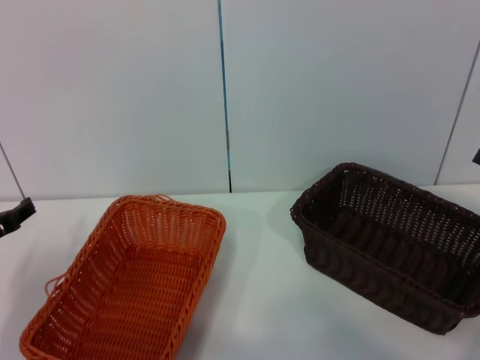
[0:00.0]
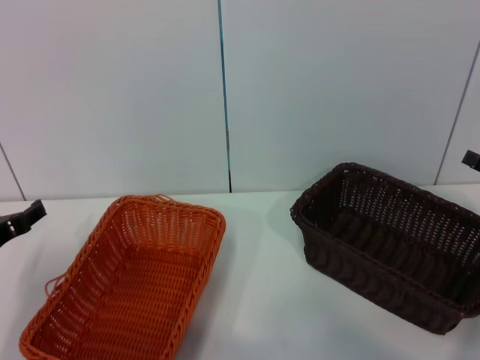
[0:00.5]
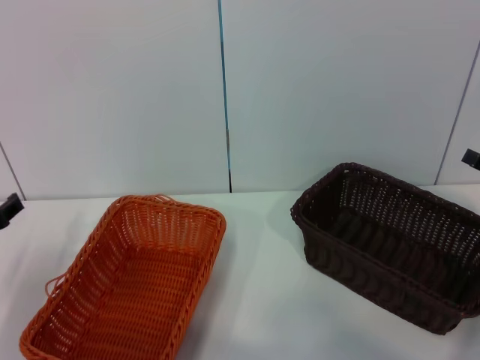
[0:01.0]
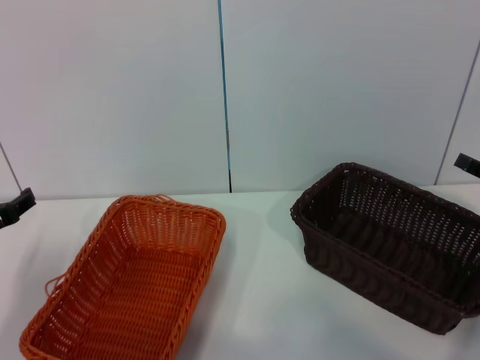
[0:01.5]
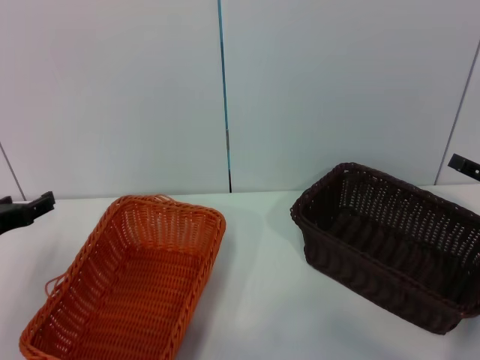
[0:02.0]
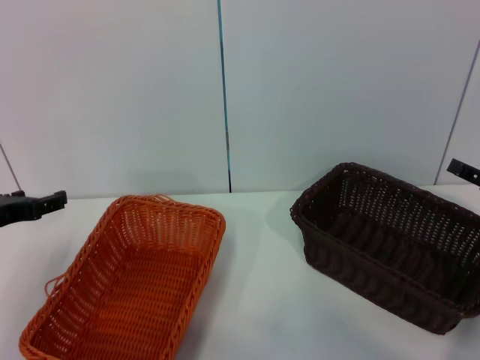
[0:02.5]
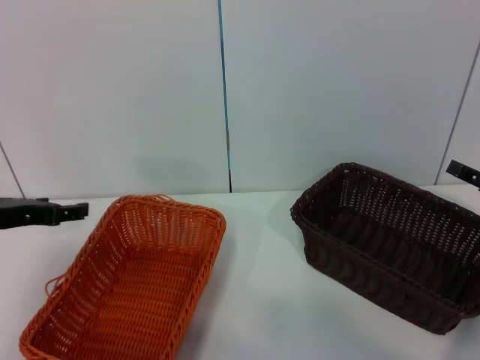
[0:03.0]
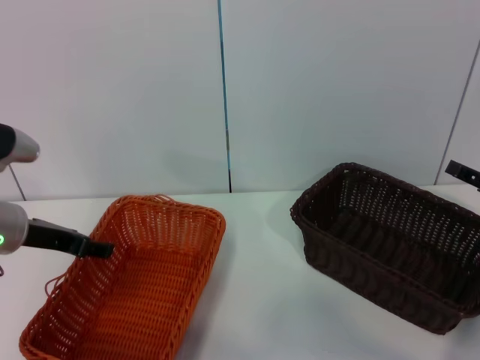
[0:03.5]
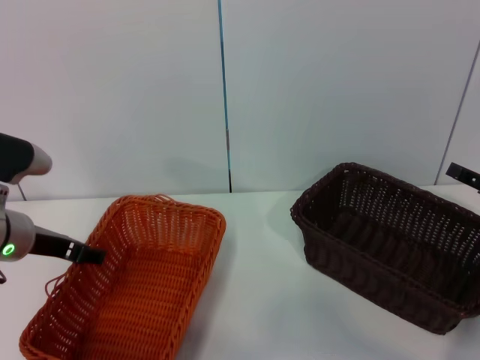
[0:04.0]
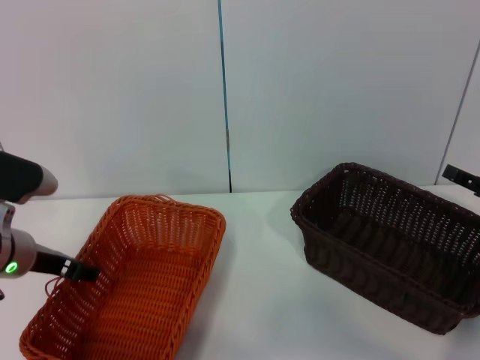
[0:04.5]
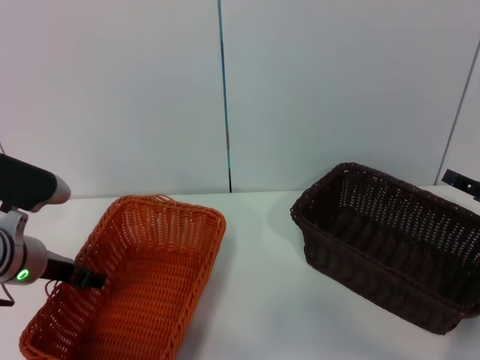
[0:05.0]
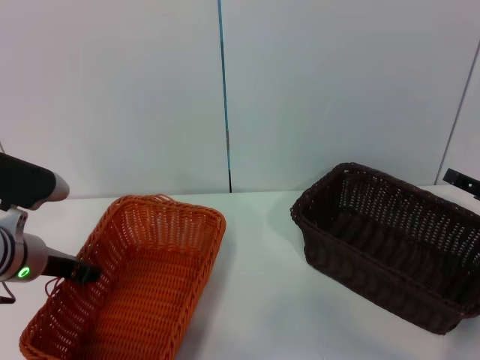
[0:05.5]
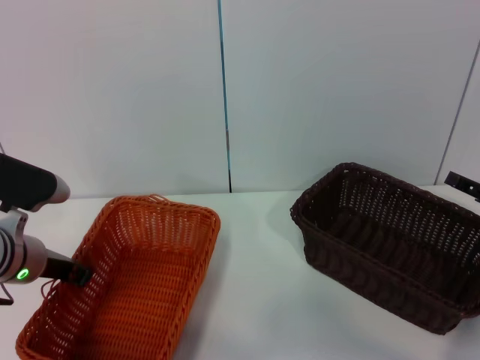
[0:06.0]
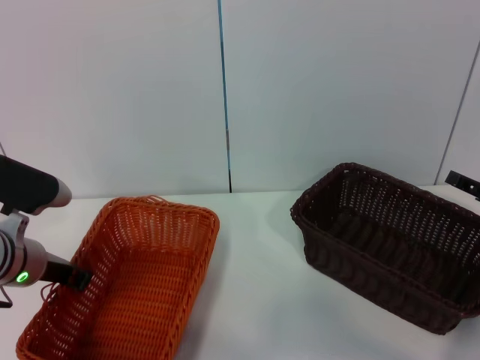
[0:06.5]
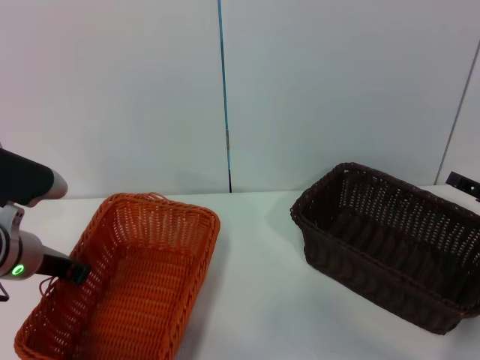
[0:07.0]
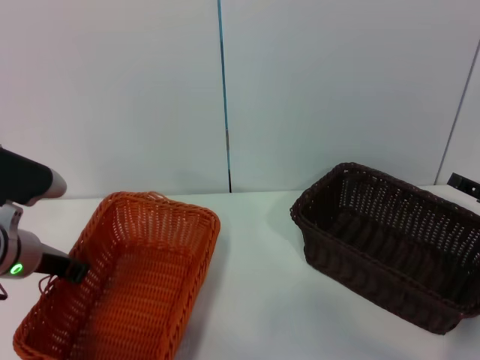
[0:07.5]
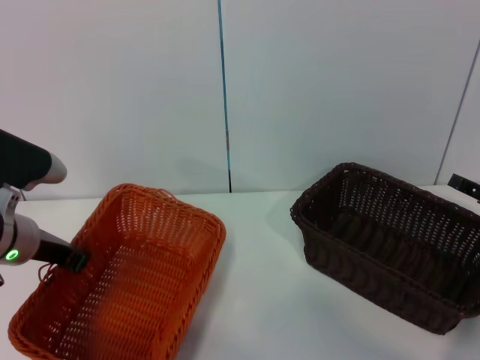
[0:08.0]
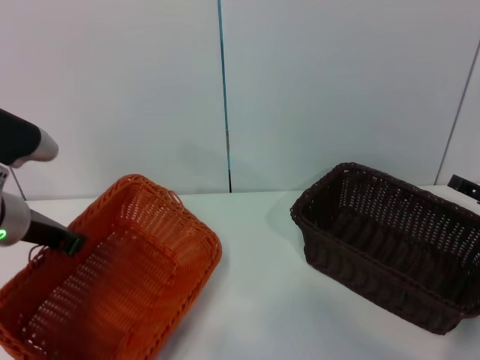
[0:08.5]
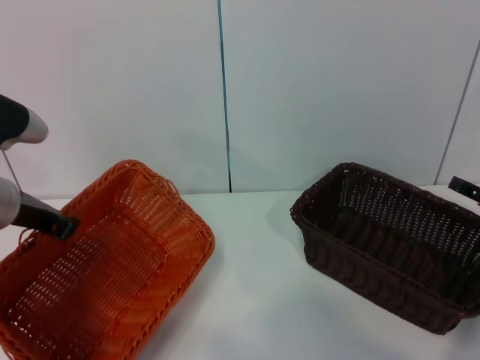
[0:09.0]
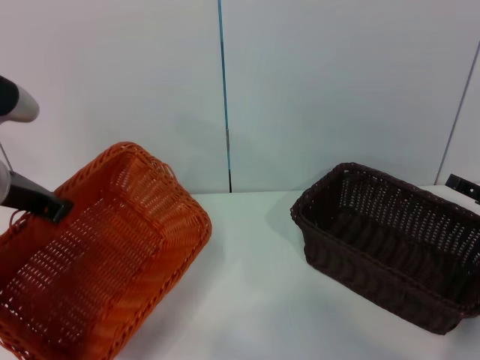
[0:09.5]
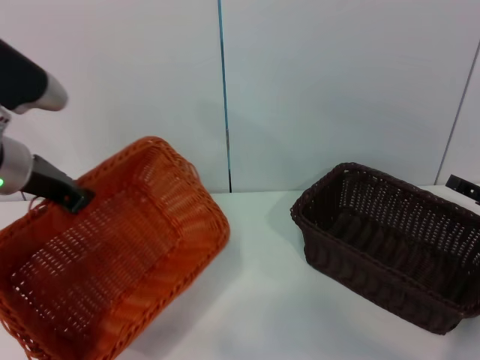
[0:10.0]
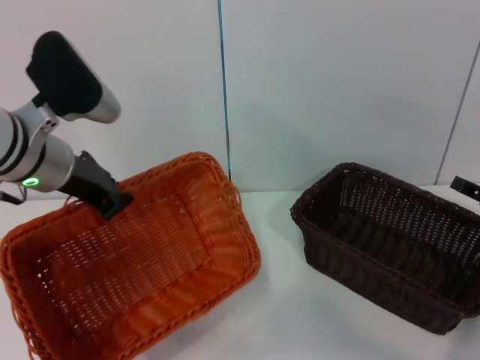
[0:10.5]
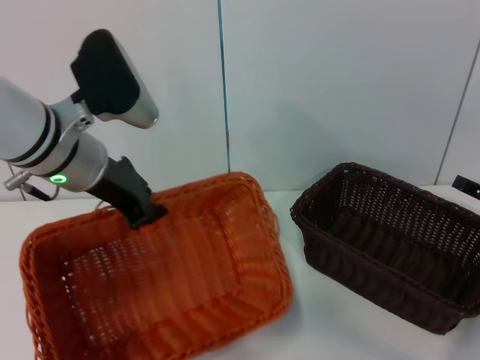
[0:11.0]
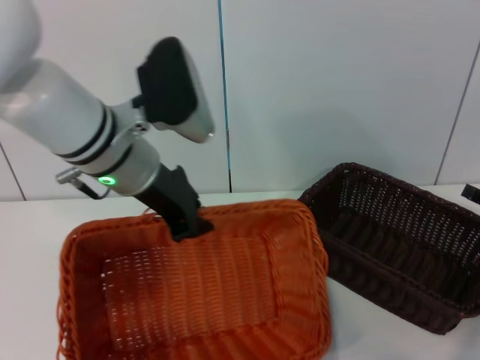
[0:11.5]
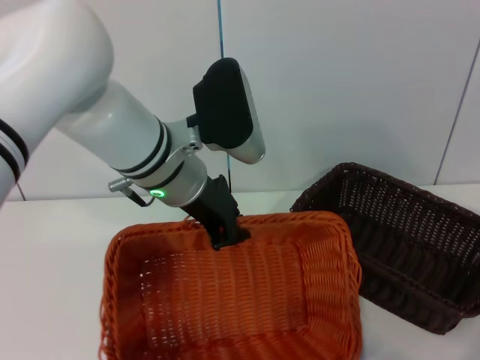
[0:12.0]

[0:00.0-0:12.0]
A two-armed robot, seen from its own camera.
Step, 0:00.0 to 0:04.5: Pick up the light basket with the left gripper.
0:00.0 to 0:02.0: The grippers stay close to where they were, moving slightly.
0:02.0 to 0:04.0: The left gripper heads to the right, covering about 5 cm.
0:04.0 to 0:06.0: The left gripper closes.
0:06.0 to 0:08.0: The grippers make only small movements.
0:08.0 to 0:10.0: The left gripper shifts approximately 10 cm upward.
0:10.0 to 0:12.0: The left gripper is displaced to the right by some 15 cm.

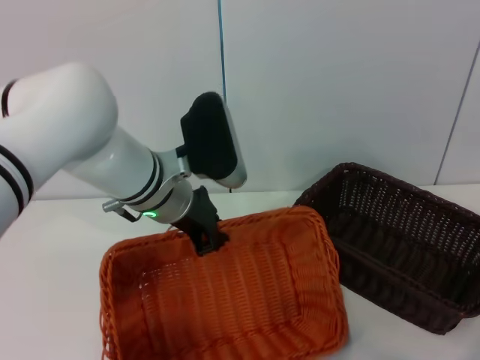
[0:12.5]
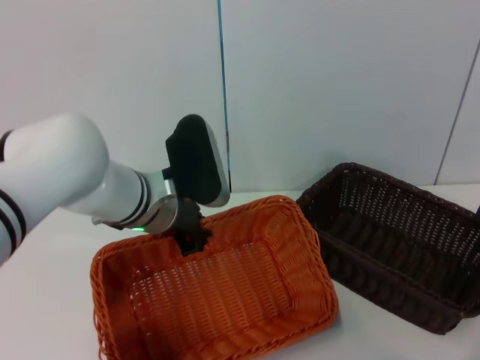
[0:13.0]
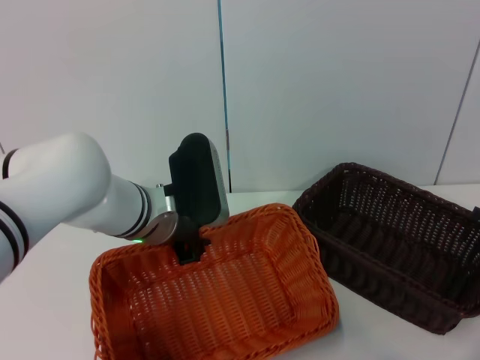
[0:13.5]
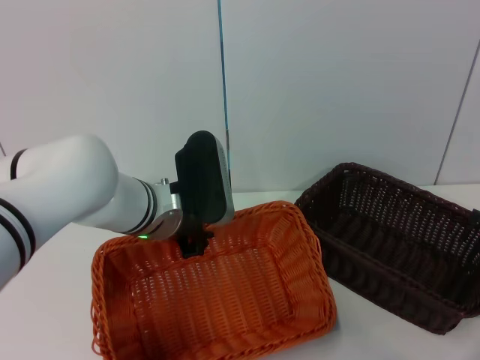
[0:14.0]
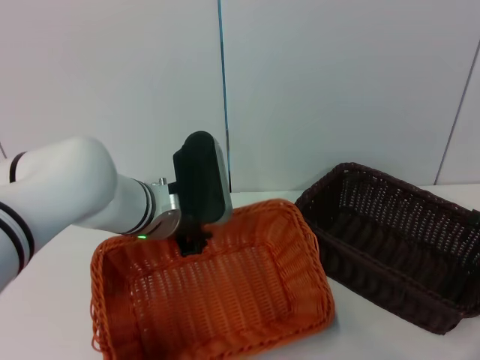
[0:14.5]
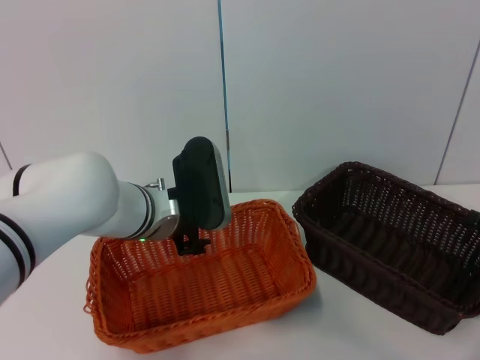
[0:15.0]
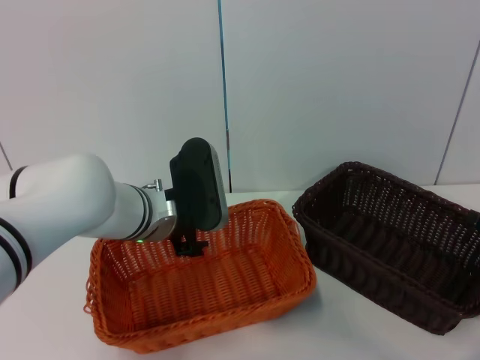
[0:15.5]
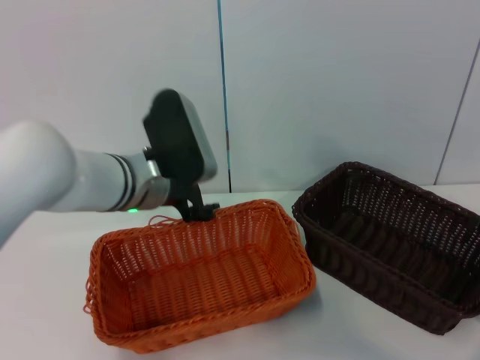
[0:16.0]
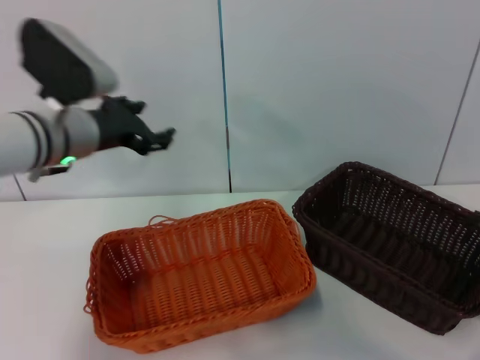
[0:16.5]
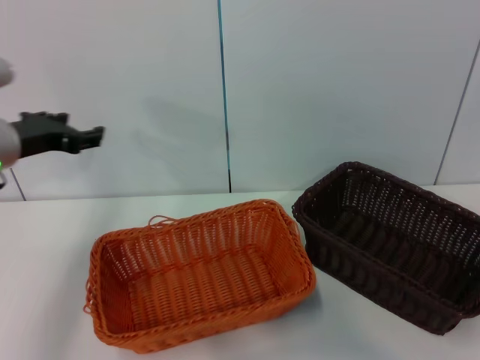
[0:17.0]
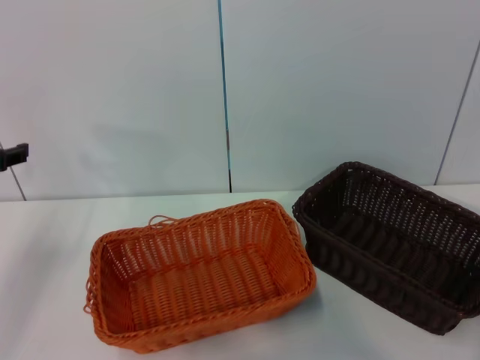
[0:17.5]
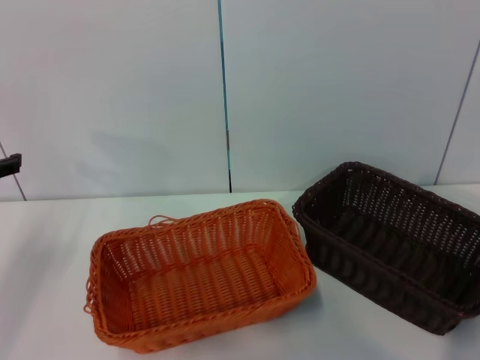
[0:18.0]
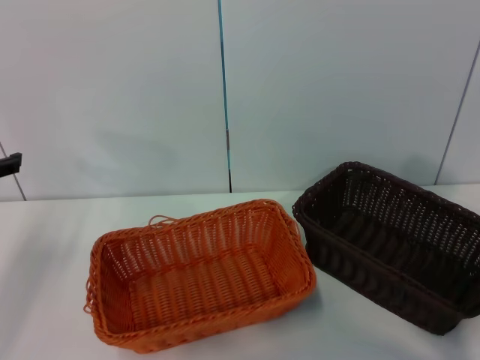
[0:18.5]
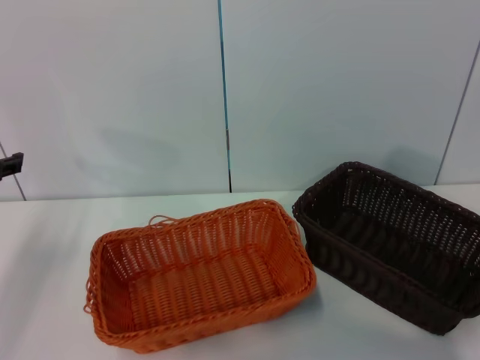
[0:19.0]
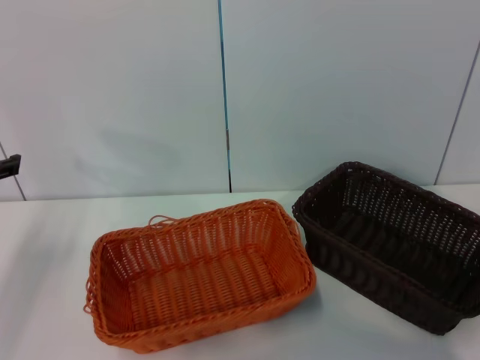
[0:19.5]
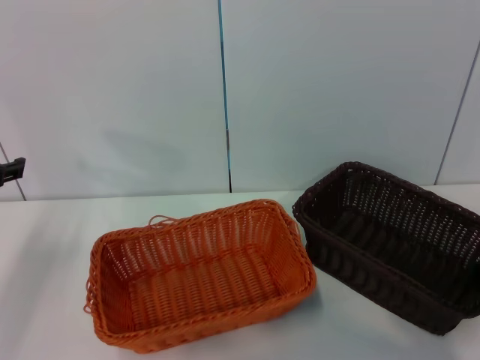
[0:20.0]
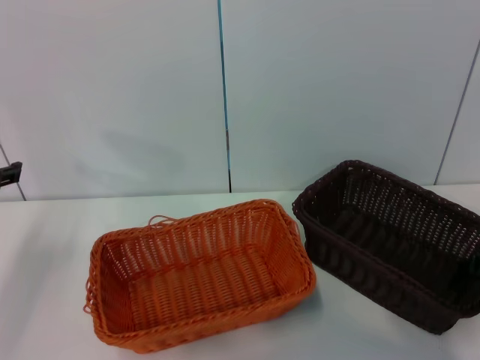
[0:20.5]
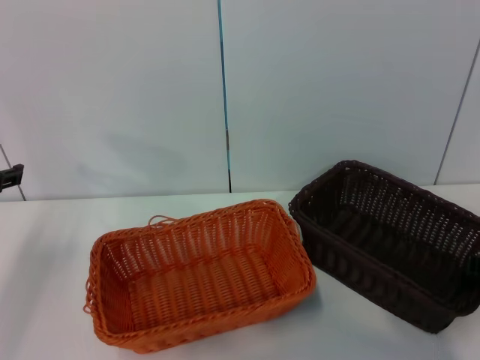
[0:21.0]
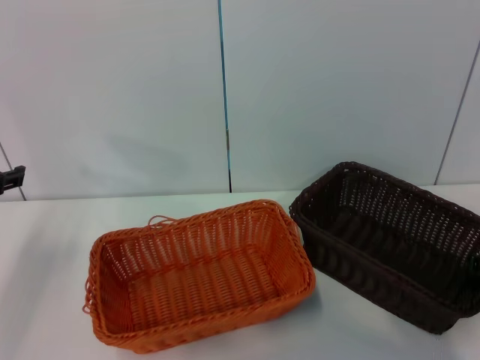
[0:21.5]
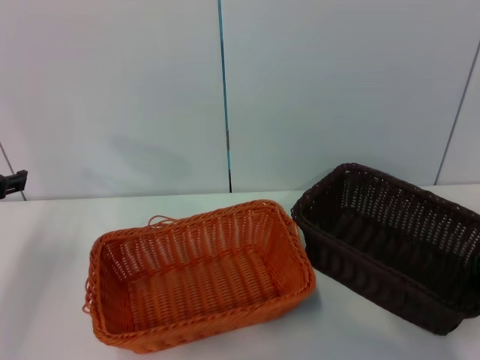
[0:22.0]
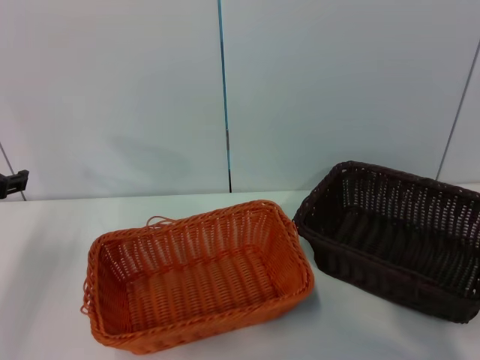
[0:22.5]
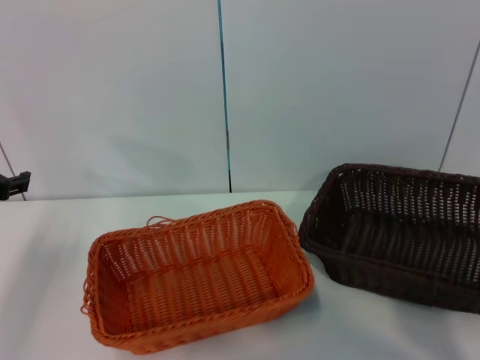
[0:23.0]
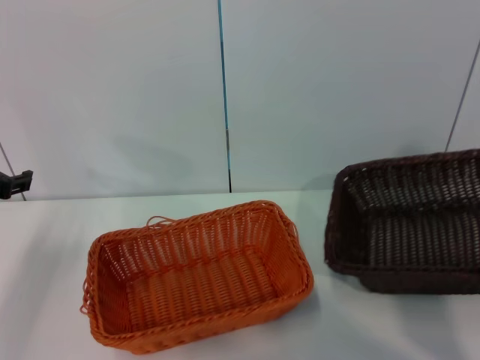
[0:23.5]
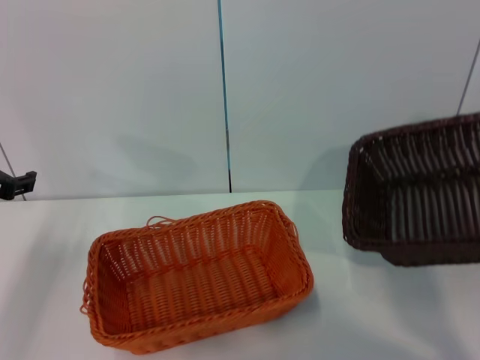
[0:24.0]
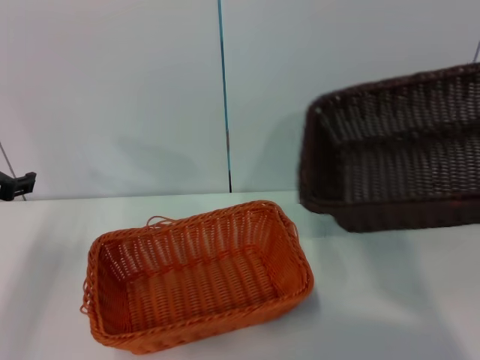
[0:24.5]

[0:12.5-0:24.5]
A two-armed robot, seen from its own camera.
Step, 0:12.5 to 0:14.5: Place the light basket in the center of view with the left gripper.
Step, 0:15.0 to 0:22.5: Pick up the dark basket with the right gripper.
0:12.5 to 0:14.5: The grippers make only small movements.
0:14.5 to 0:16.5: The left gripper travels to the left and upward by some 10 cm, and opens up.
0:16.5 to 0:18.5: The right gripper travels upward by approximately 10 cm; the left gripper travels to the left by roughly 15 cm.
0:18.5 to 0:20.5: The right gripper shifts approximately 5 cm downward.
0:20.5 to 0:22.5: The right gripper closes its fingers.
0:22.5 to 0:24.5: The right gripper heads upward, covering roughly 15 cm.

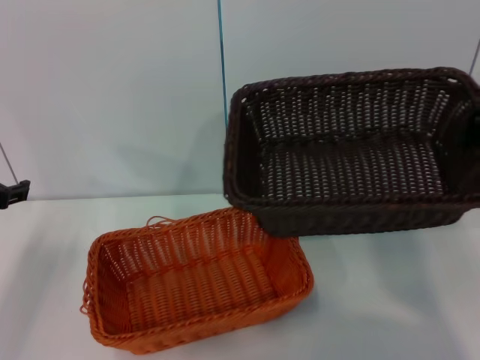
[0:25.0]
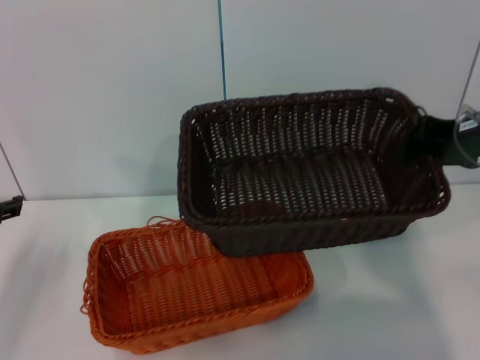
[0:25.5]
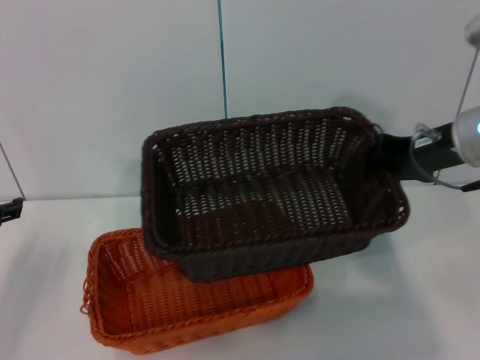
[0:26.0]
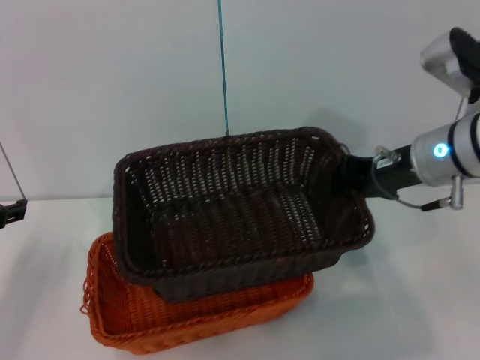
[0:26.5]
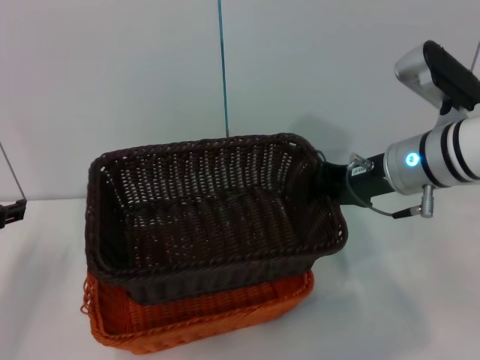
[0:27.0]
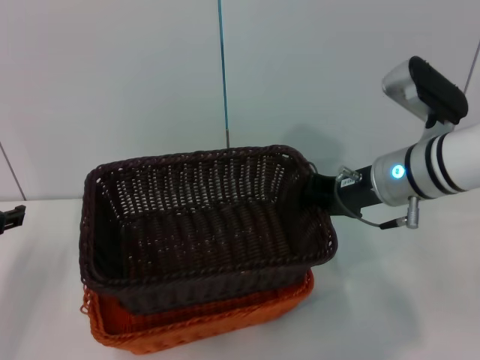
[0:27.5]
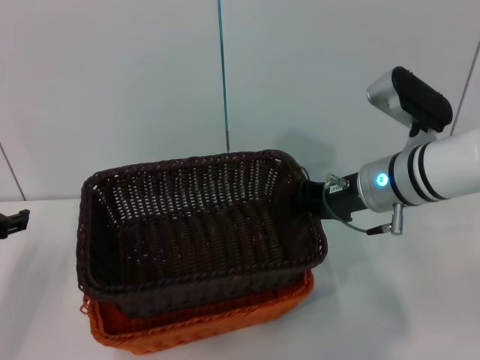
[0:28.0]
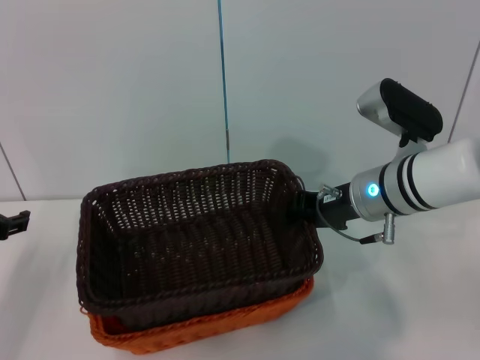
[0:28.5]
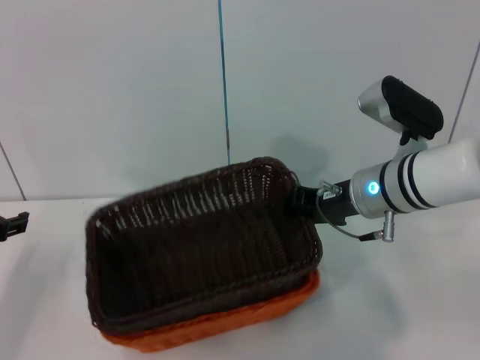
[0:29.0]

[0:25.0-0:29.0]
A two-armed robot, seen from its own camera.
0:25.0 to 0:27.0: The right gripper goes some 15 cm to the left, downward and forward.
0:27.0 to 0:29.0: There are only small adjustments of the grippers.
